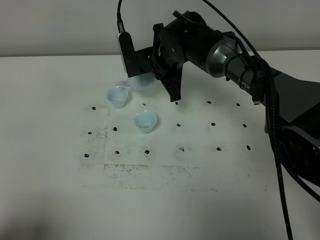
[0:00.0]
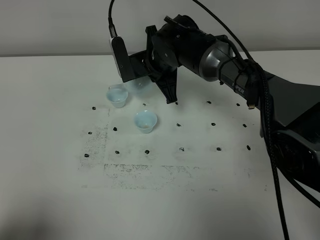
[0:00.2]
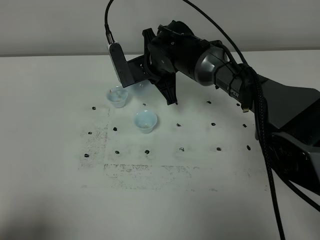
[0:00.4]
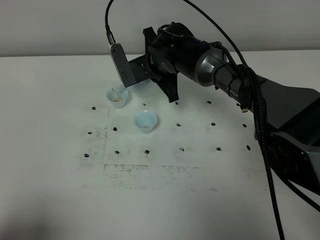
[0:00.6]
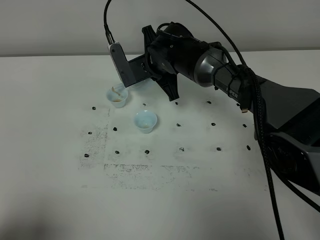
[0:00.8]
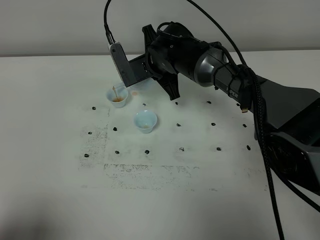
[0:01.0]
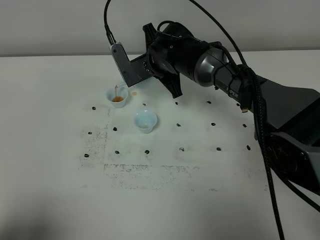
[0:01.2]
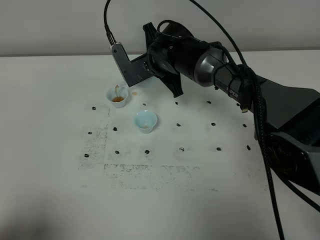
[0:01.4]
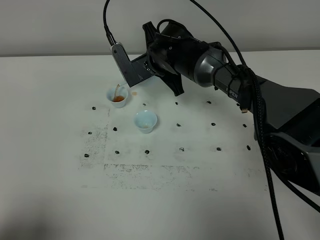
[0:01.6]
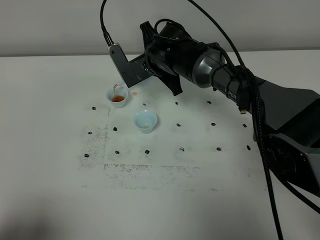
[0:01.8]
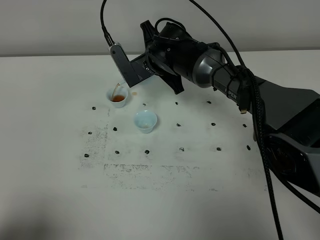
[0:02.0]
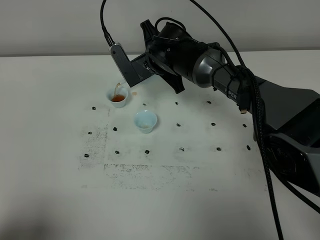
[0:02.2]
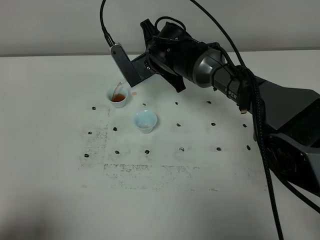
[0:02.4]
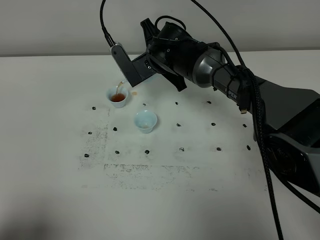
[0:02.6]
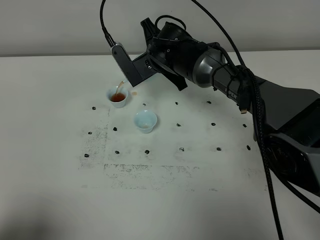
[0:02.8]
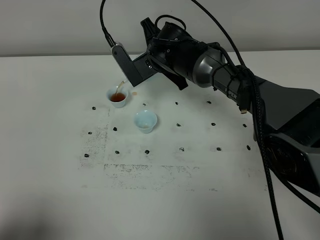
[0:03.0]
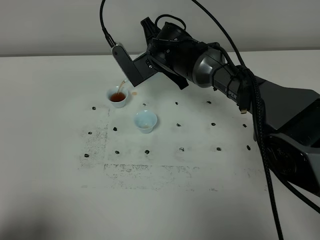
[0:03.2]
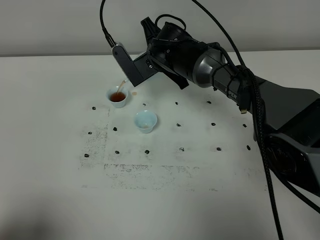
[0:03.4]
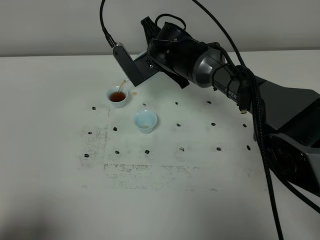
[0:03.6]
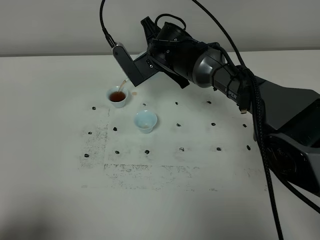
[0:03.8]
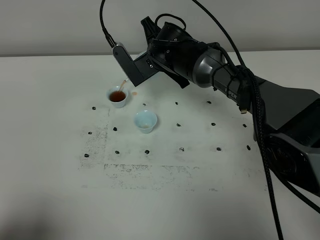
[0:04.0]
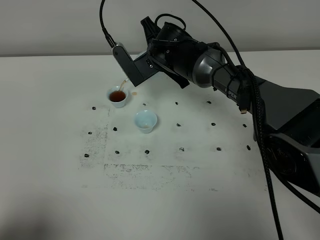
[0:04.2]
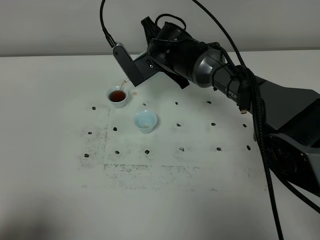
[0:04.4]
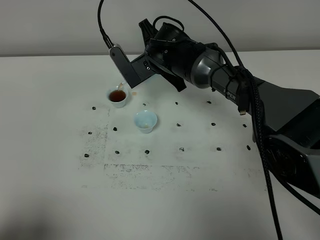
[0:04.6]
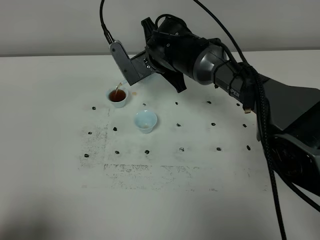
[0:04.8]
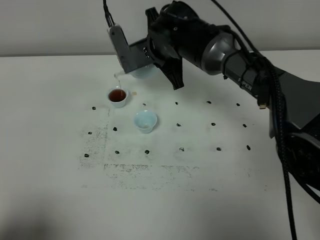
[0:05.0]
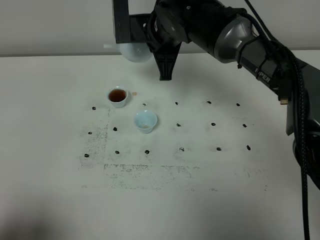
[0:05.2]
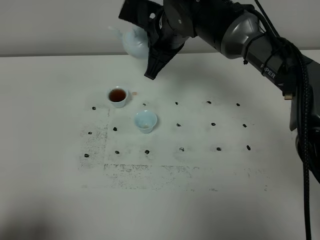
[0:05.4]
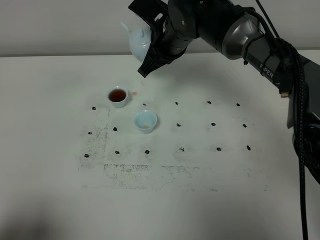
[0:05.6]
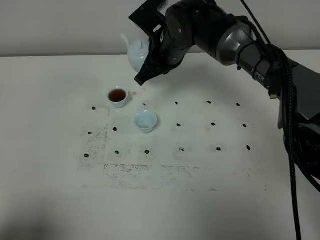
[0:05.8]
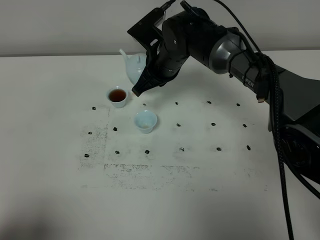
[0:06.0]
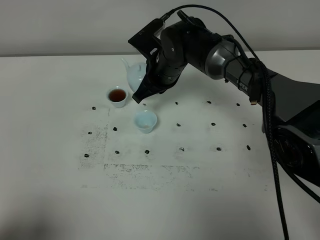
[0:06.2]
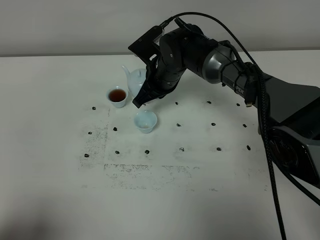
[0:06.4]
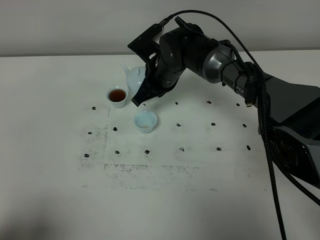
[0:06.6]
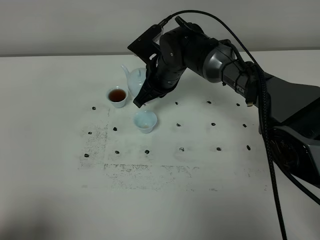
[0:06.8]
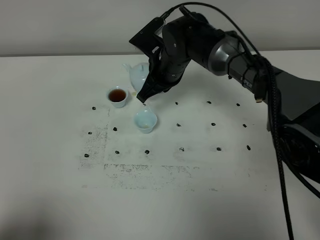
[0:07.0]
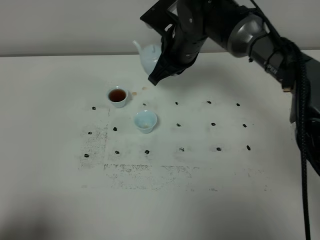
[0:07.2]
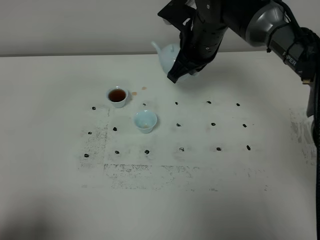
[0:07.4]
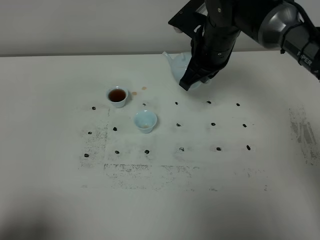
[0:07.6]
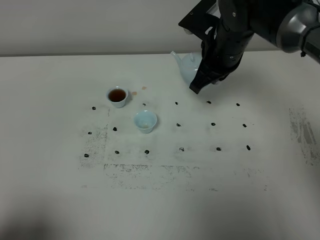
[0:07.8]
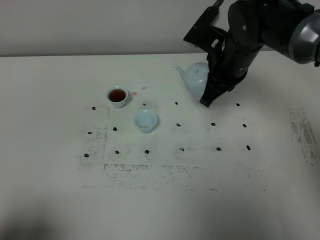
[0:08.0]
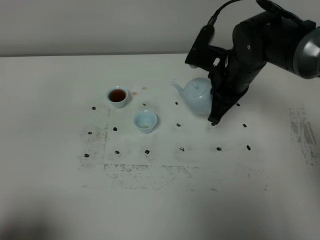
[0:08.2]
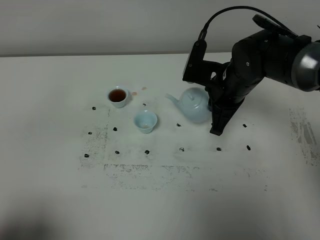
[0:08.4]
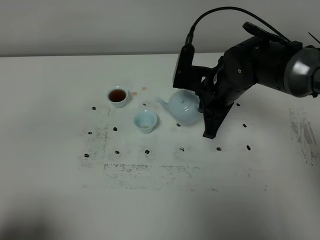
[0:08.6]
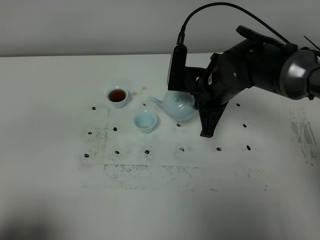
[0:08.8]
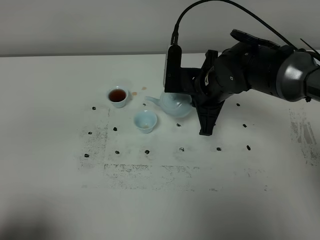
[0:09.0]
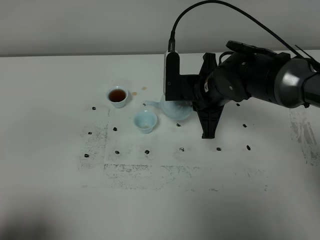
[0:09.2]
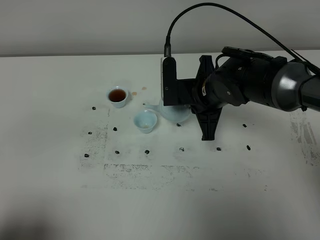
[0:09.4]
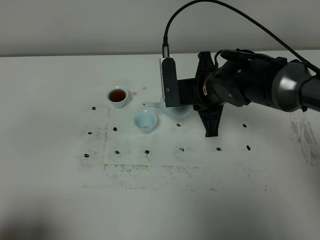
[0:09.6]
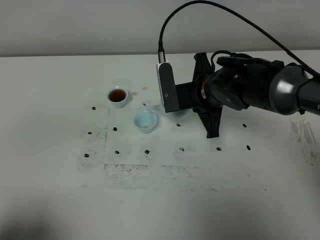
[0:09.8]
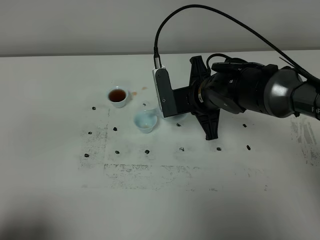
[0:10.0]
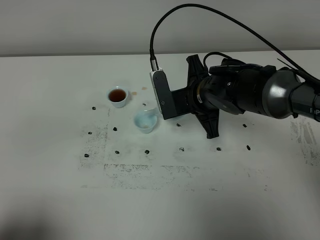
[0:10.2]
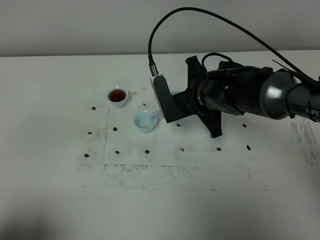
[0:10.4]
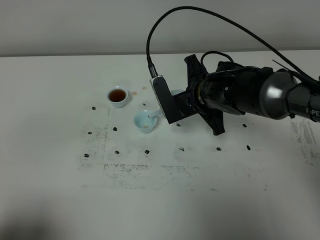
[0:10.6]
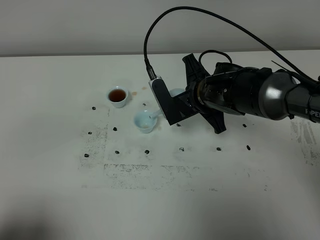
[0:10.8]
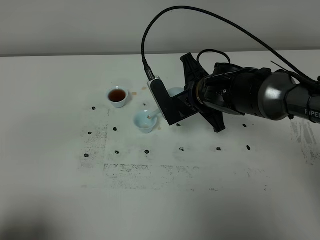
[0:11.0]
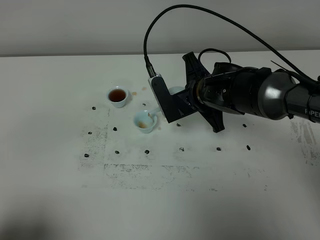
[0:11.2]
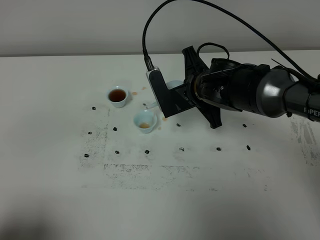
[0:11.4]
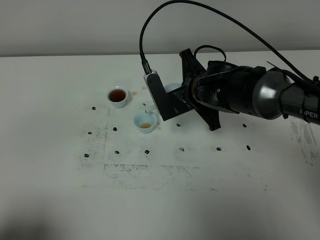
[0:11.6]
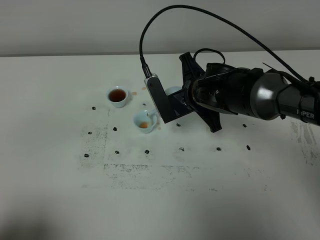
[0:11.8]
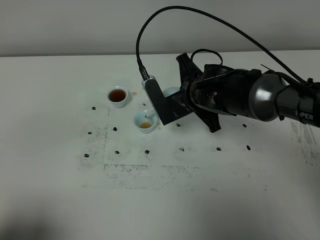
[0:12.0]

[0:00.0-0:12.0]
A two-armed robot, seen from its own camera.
Task of the whole recording: grasp the blue porcelain teapot and pour the tea into the two blue porcelain teacups one by one, put the blue porcelain teapot back in its original place.
Step, 0:00.0 to 0:05.0: Pour tea into the teacup with the right gripper.
0:00.0 to 0:01.6: The grippers stay close to where they were, moving slightly.
0:01.6 to 0:03.0: The grippers stay close to where they were, moving slightly.
0:03.0 to 0:04.4: Both grippers stay put.
0:04.4 to 0:06.0: The right gripper moves about 10 cm upward and comes back.
0:06.0 to 0:07.6: The right gripper shifts roughly 10 cm to the right and upward.
0:07.6 to 0:09.0: The right gripper heads backward and downward, covering about 5 cm.
0:10.4 to 0:12.0: There are only small adjustments of the grippers.

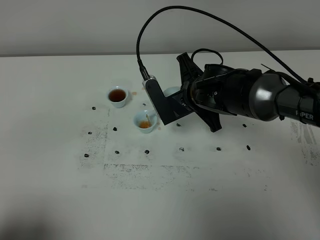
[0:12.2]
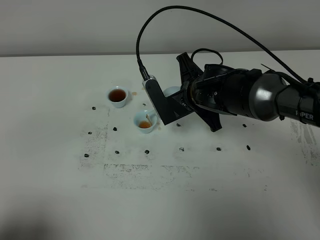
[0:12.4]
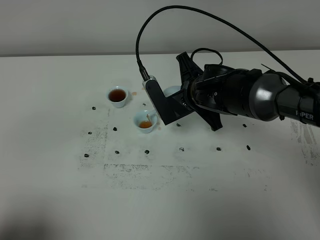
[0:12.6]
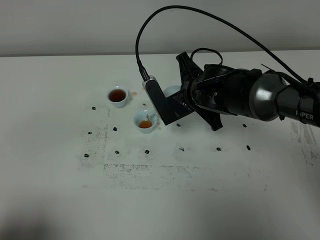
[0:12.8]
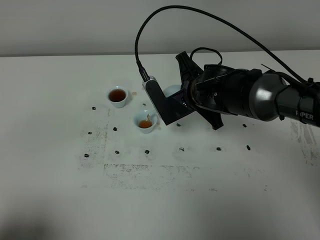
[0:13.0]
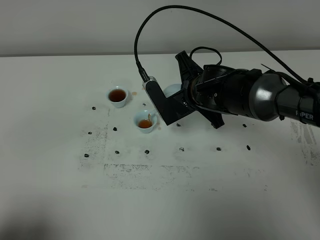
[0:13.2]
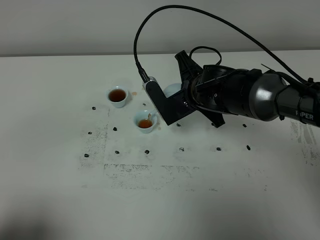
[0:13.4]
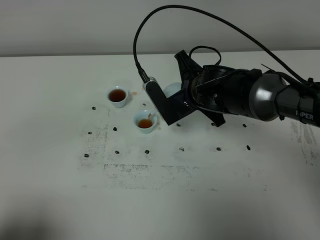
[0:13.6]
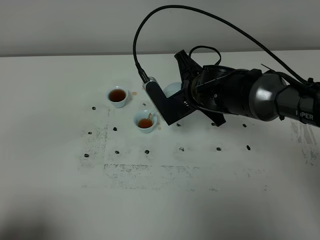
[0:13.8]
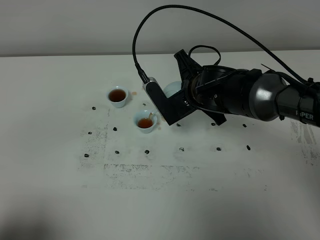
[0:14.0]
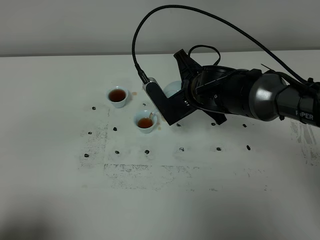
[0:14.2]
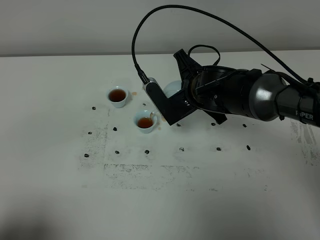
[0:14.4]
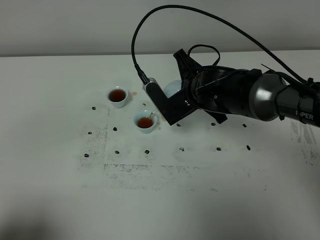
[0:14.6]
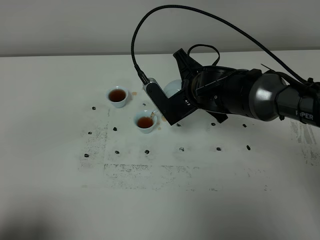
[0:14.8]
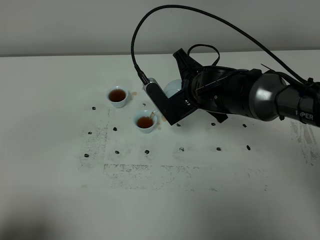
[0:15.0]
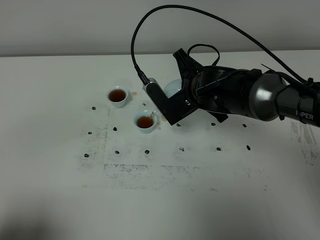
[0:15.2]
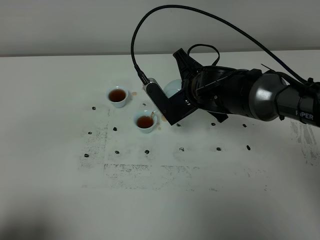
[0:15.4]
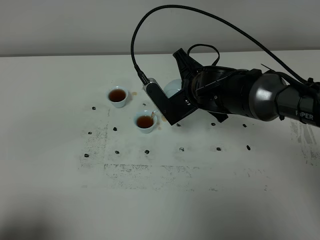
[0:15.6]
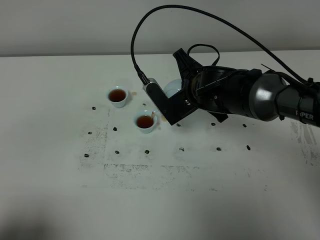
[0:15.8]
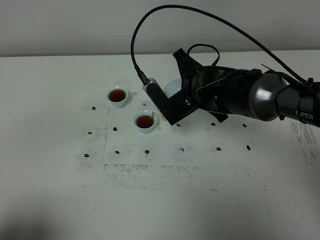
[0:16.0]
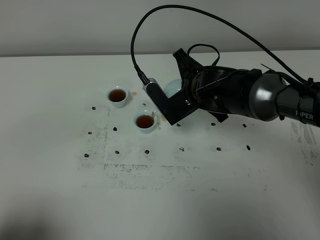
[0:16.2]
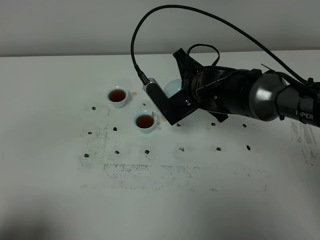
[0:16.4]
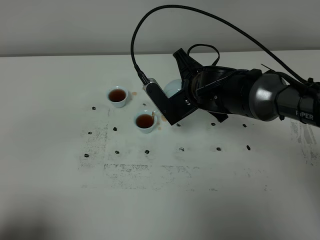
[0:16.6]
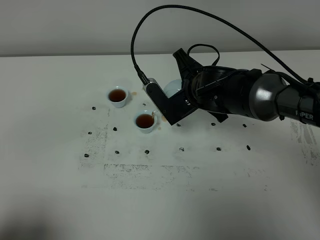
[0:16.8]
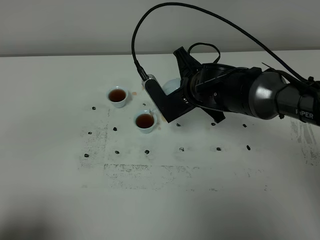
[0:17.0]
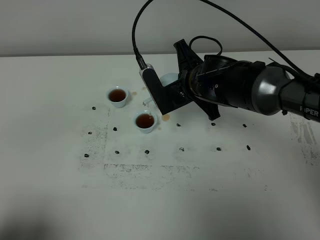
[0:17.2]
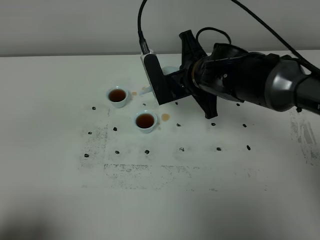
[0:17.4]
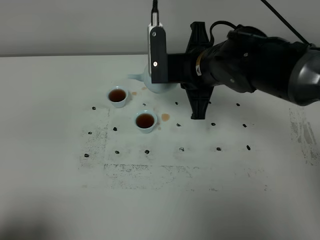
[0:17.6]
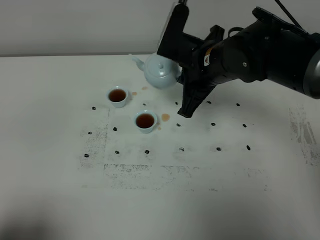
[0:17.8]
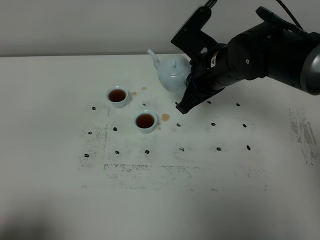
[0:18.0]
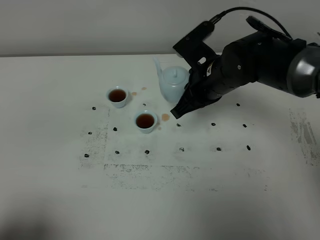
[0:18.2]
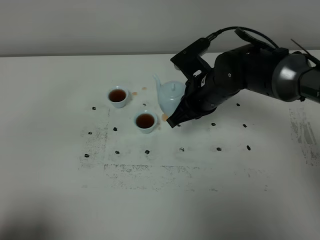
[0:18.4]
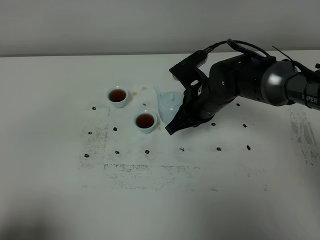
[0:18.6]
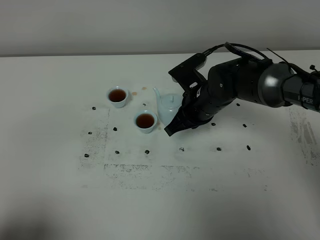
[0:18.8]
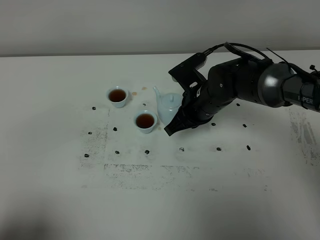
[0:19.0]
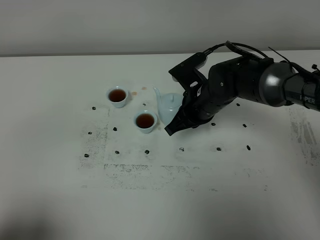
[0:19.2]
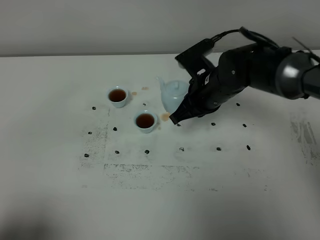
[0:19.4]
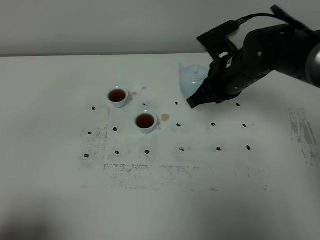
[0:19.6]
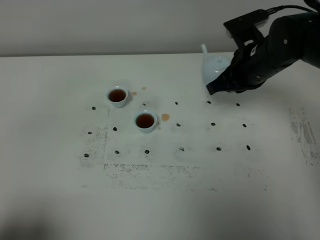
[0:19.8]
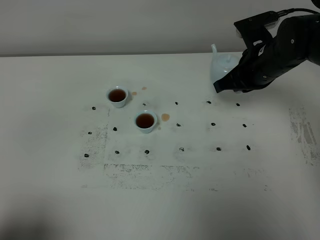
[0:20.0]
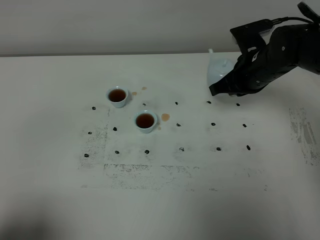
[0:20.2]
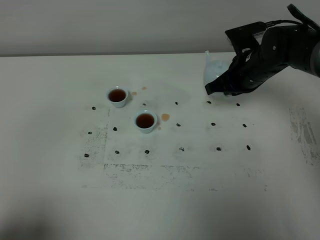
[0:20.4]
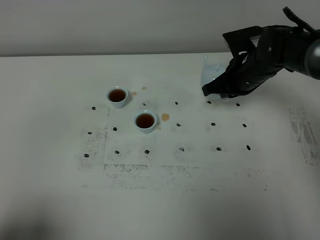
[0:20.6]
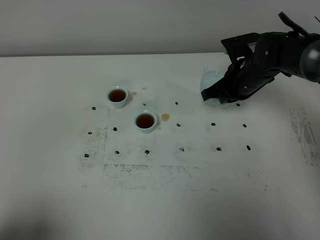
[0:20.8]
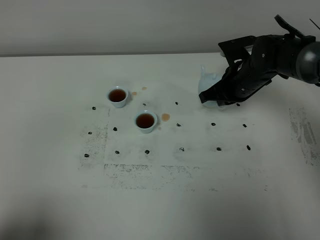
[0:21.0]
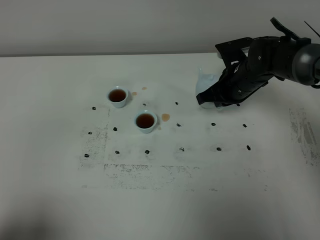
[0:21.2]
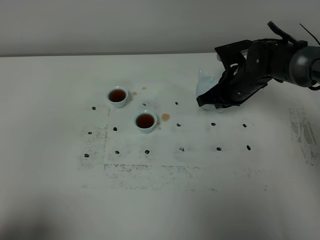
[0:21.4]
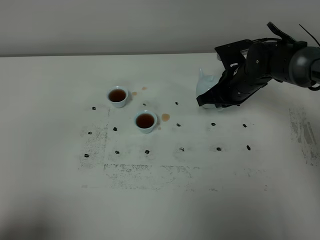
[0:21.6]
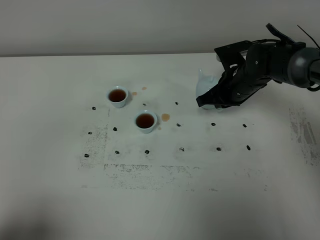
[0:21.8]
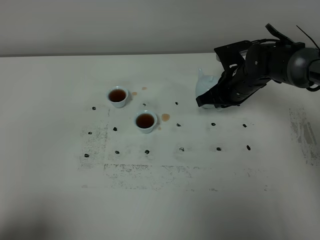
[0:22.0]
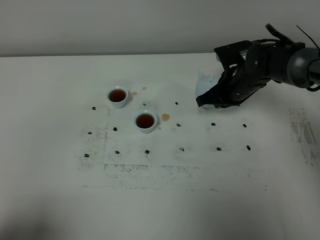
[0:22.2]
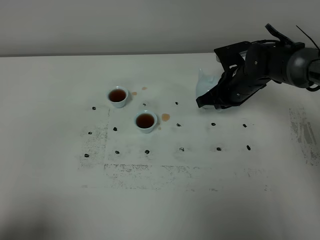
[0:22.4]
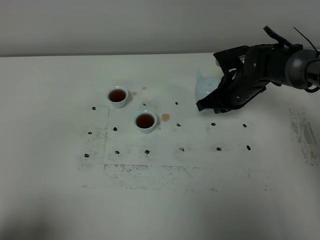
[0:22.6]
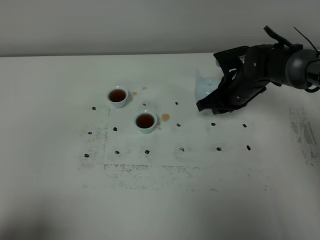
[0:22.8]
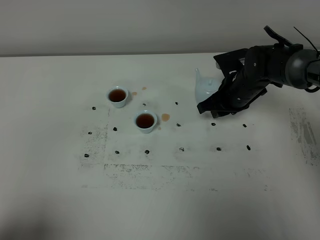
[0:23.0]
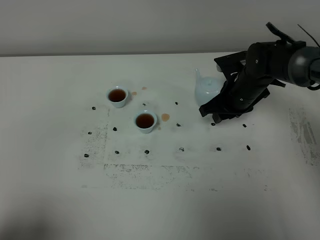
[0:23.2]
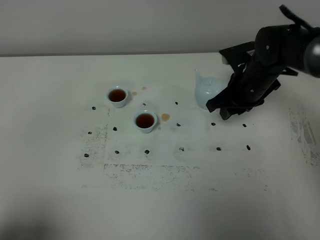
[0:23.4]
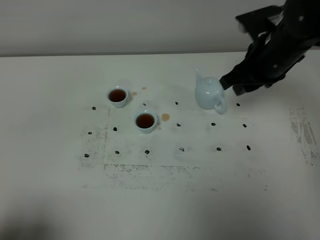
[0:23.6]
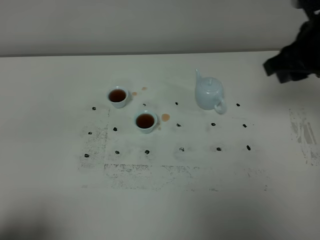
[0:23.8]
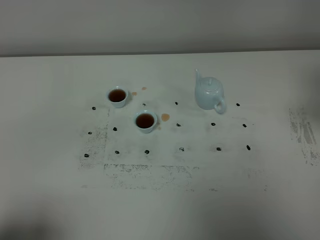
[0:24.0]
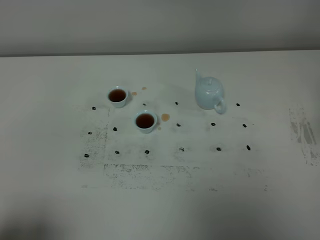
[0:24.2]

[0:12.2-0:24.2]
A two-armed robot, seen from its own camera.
Task of the whole recording: grasp the blue porcelain teapot and pour the tea into the two blue porcelain teacups one by one, put the blue porcelain teapot back in its original place.
Step, 0:12.2 to 0:17.4: Pour tea into the teacup with the right gripper.
0:12.2 to 0:13.8: There are only small adjustments of the grippers.
0:13.8 to 0:16.6: Both grippers stay about where they are.
0:18.2 to 0:19.8: The right gripper goes some 10 cm to the right.
0:19.8 to 0:21.2: The right gripper heads downward, covering approximately 10 cm.
0:21.2 to 0:22.6: There are only small adjustments of the grippers.
0:22.6 to 0:24.2: The right gripper goes about 35 cm backward, upward and to the right, and opens.
